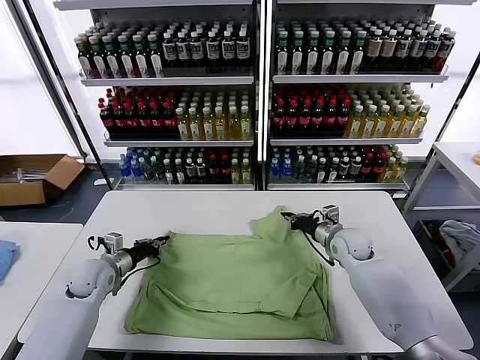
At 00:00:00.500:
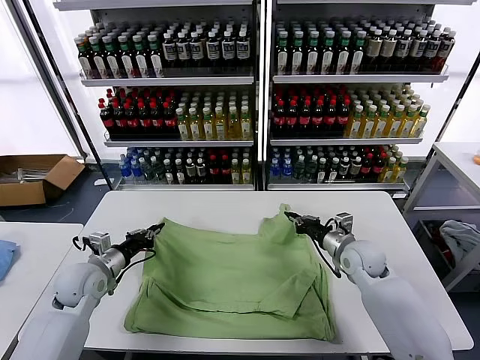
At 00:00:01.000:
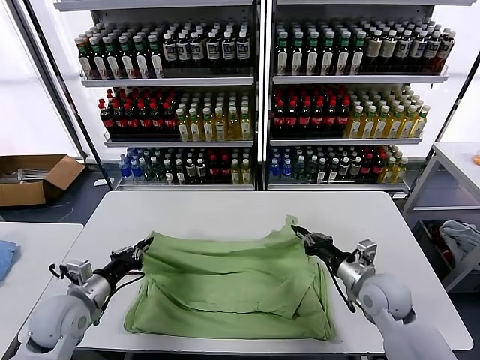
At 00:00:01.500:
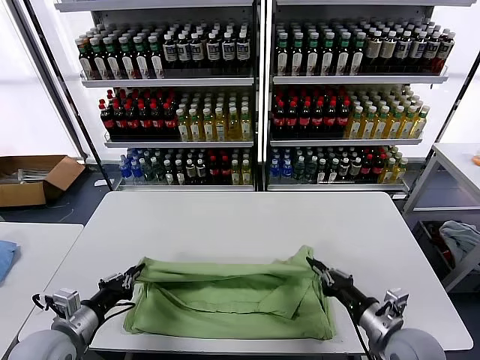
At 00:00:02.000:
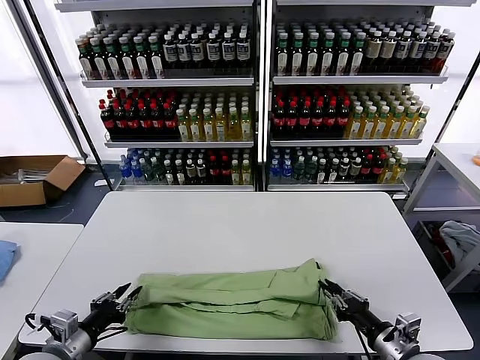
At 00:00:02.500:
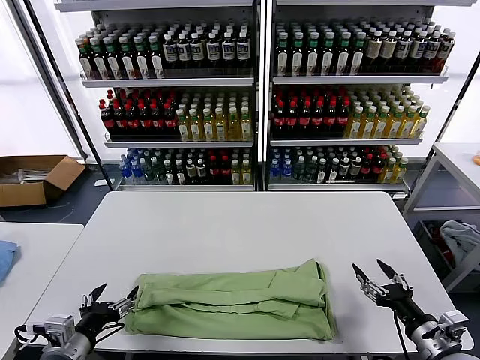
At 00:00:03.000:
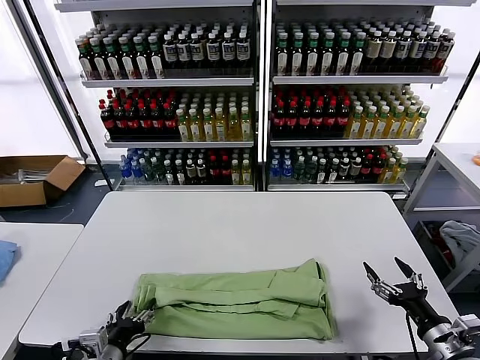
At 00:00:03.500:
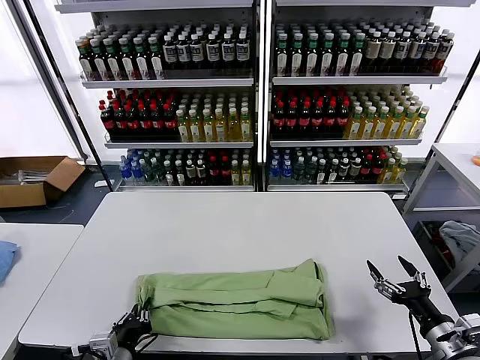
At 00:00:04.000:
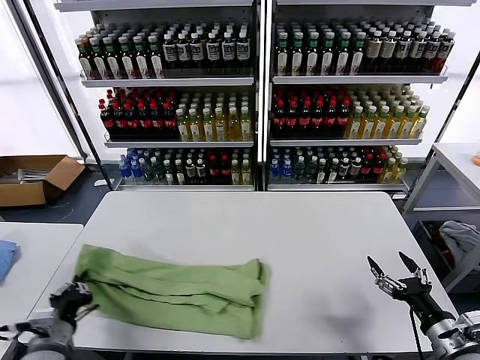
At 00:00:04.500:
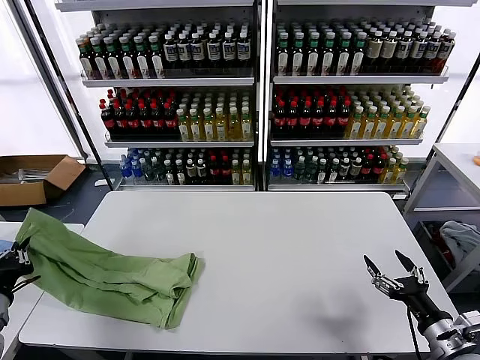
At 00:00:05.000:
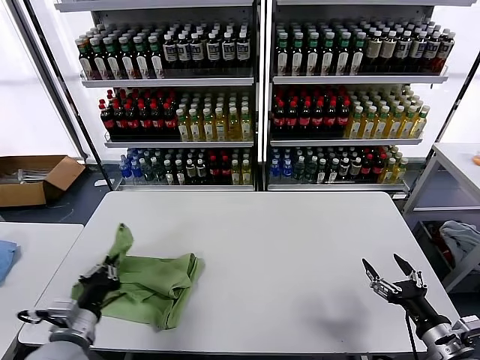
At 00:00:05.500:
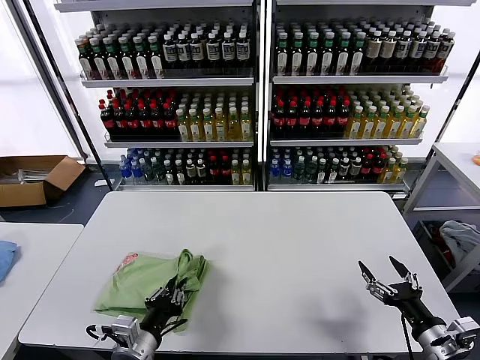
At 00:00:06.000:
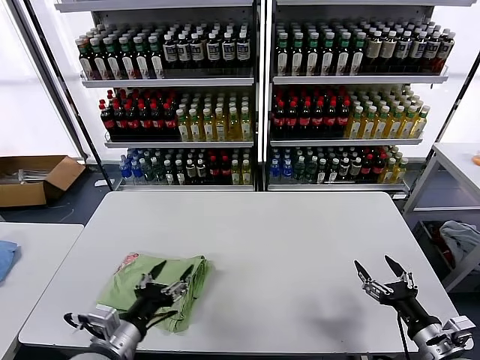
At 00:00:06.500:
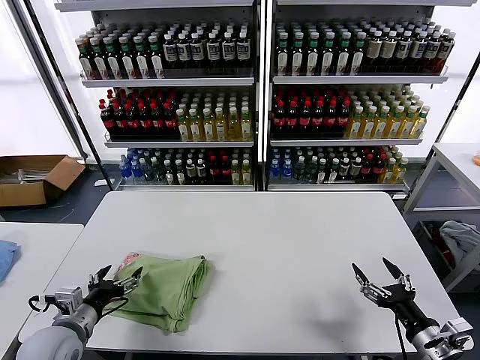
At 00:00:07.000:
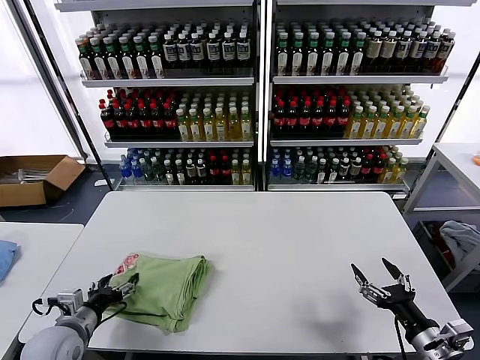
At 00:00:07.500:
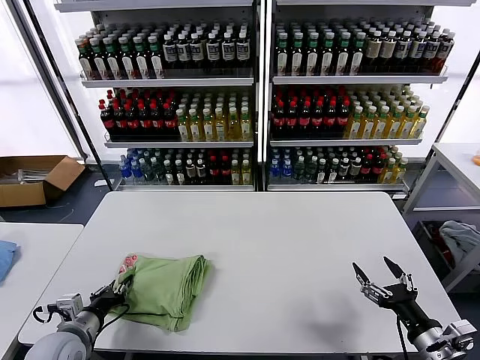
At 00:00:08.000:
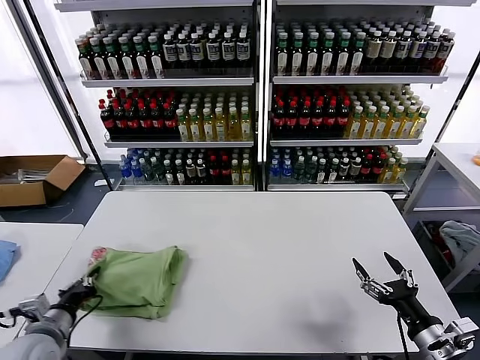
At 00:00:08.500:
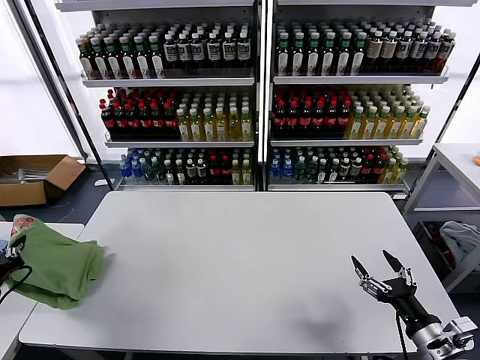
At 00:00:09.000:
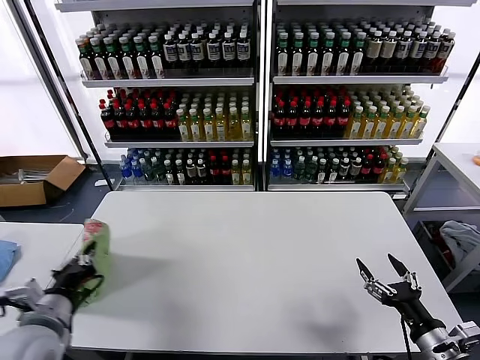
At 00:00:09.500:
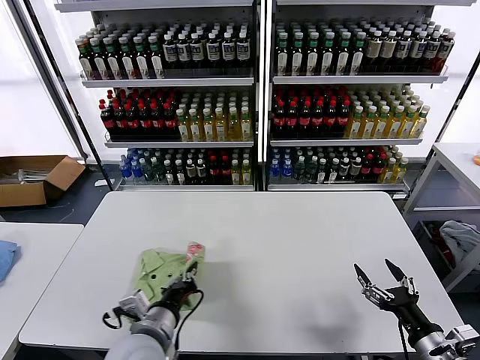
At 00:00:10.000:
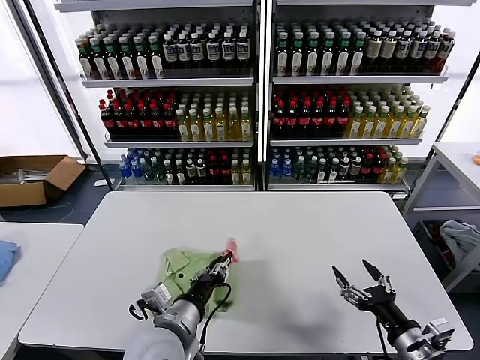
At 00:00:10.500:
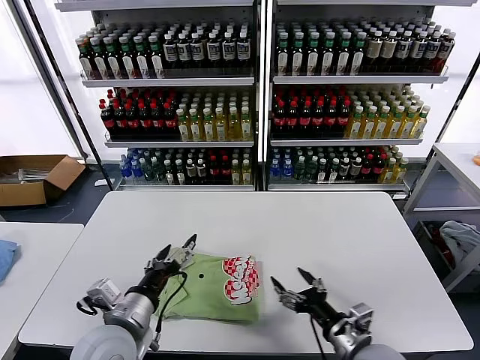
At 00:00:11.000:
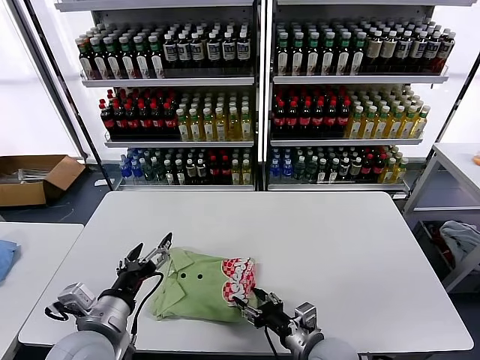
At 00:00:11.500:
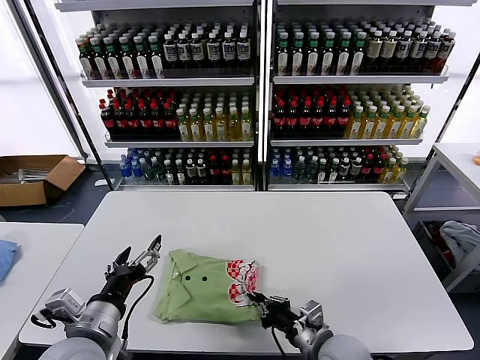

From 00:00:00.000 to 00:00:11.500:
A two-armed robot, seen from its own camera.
Task of the whole recording: fold and organize the clothes.
Step, from 00:00:00.000 to 00:00:02.000: use both grippers to drag the upper edge of the fabric backward and fold it over the lower edge.
Step, from 00:00:02.500 to 00:00:03.500: use the left gripper to clamp the left edge of the fabric.
Step, from 00:00:04.000 to 00:00:05.500: use the left gripper to drag the left edge of the fabric to the left and folds it over the right edge.
Step, from 00:00:06.000 to 00:00:10.000: Flip the folded clothes over with left gripper.
From 00:00:00.000 to 00:00:02.000: The grippers both shift backward by about 25 cm.
From 00:00:02.000 to 00:00:04.000: The right gripper moves to the right, roughly 5 cm, and opens. Meanwhile the left gripper travels to the right and back again, roughly 10 cm each way, and opens and closes again.
From 00:00:04.000 to 00:00:06.000: The left gripper heads to the right and upward, covering roughly 15 cm, and opens its fingers.
From 00:00:06.000 to 00:00:07.500: The left gripper heads to the left, downward and forward, covering approximately 15 cm, and closes up.
From 00:00:07.500 to 00:00:09.500: The left gripper is displaced to the right by about 15 cm.
From 00:00:09.500 to 00:00:11.500: The left gripper goes roughly 5 cm to the left, and opens; the right gripper shifts some 20 cm to the left, and closes.

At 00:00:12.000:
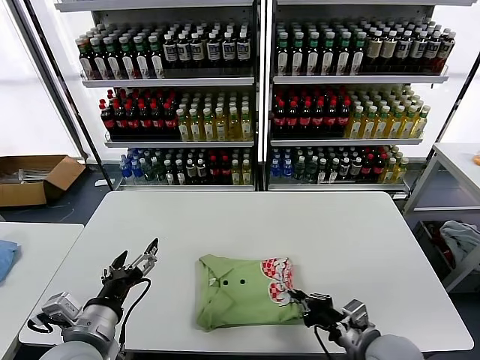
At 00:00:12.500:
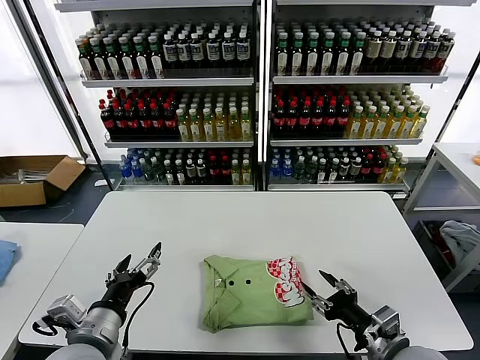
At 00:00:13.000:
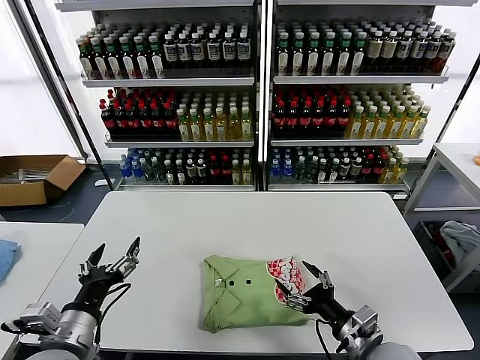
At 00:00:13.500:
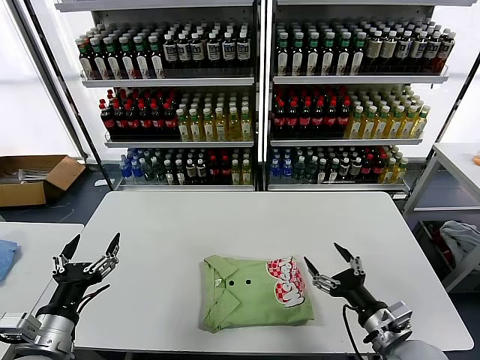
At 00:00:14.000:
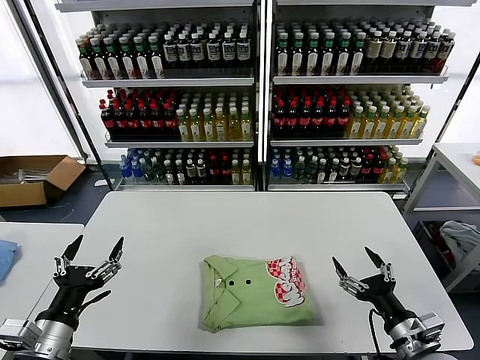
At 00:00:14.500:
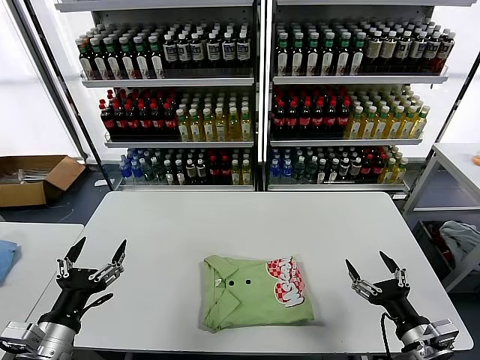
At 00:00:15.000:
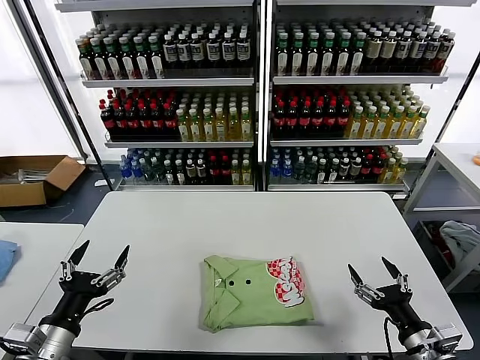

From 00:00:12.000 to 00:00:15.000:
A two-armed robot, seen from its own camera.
Task of the whole recording: fold and organize the clothes.
From 00:00:12.000 to 00:00:13.500: The left gripper travels to the left by roughly 5 cm. The right gripper opens its fingers.
From 00:00:13.500 to 00:00:15.000: The right gripper shifts roughly 5 cm to the right.

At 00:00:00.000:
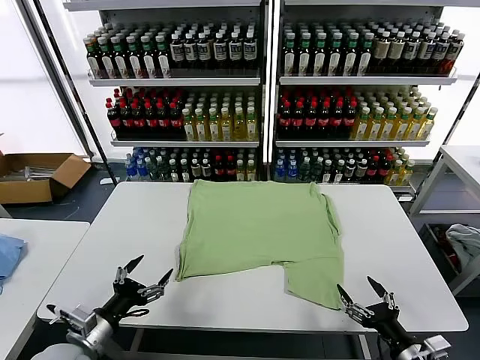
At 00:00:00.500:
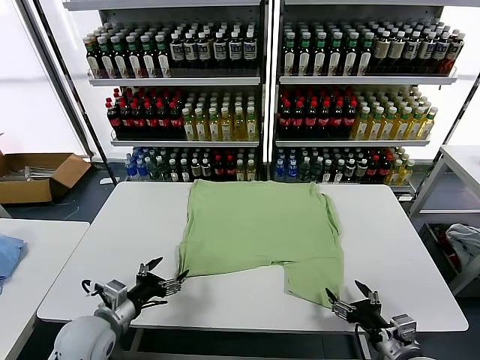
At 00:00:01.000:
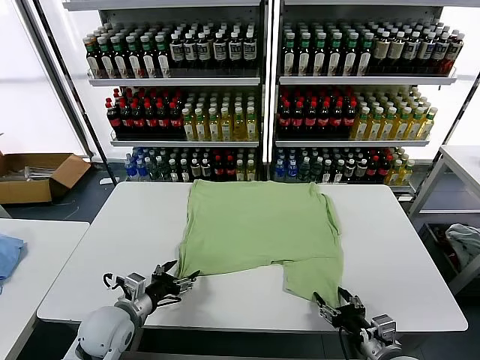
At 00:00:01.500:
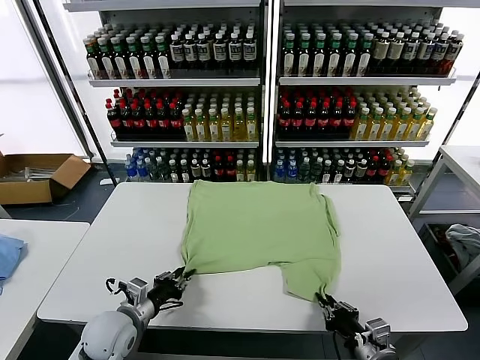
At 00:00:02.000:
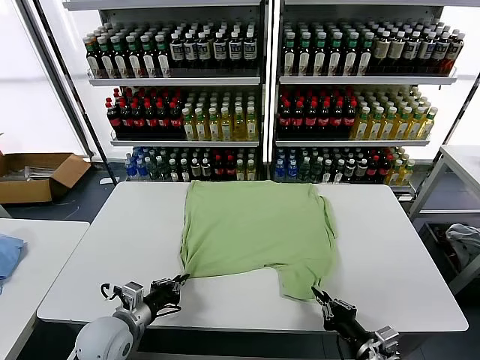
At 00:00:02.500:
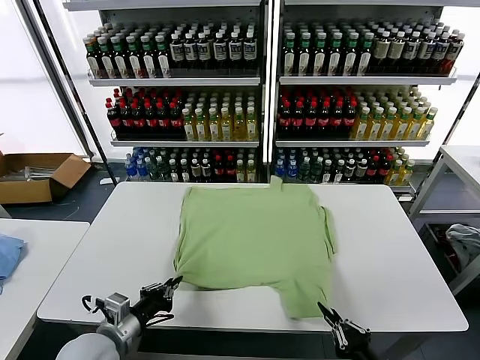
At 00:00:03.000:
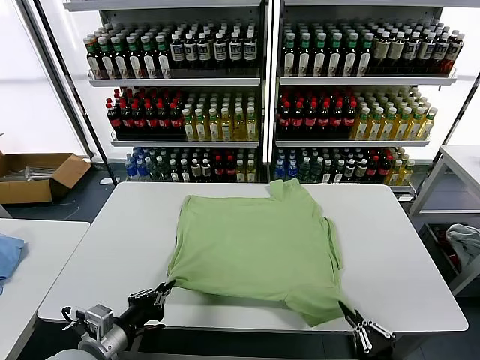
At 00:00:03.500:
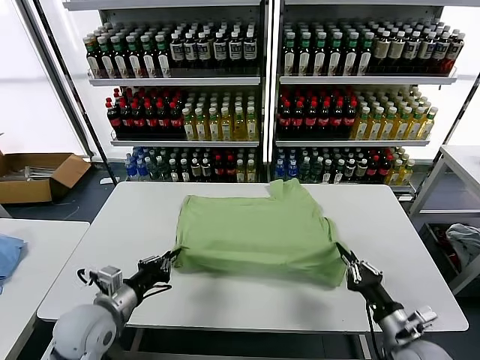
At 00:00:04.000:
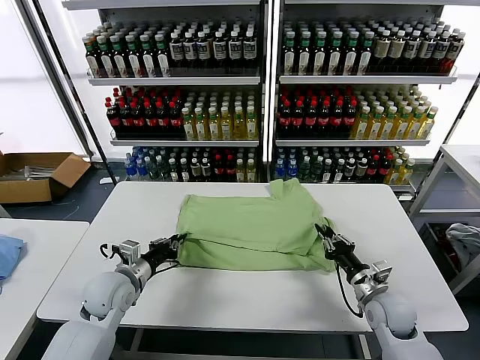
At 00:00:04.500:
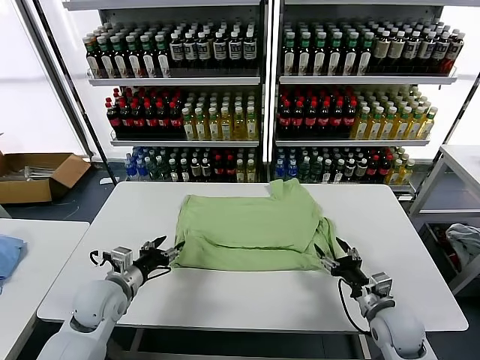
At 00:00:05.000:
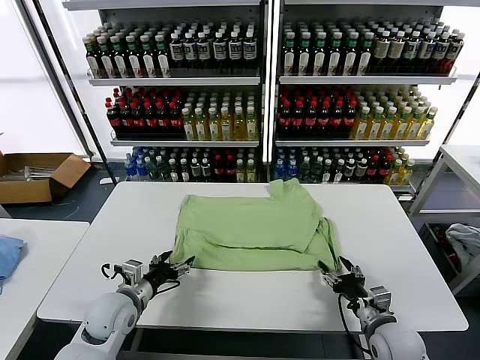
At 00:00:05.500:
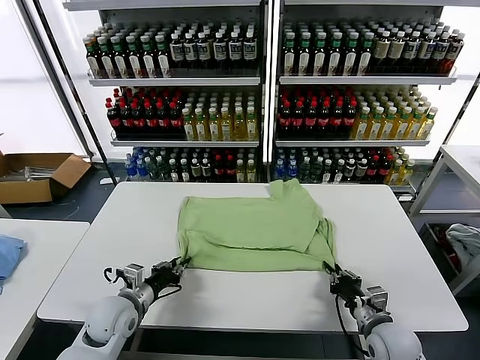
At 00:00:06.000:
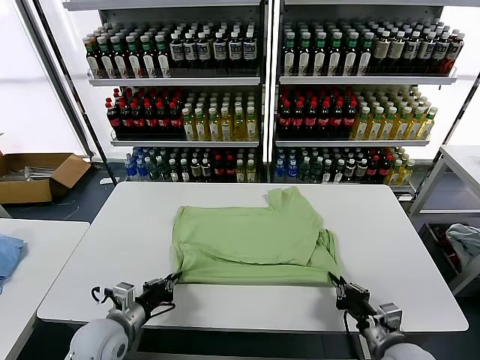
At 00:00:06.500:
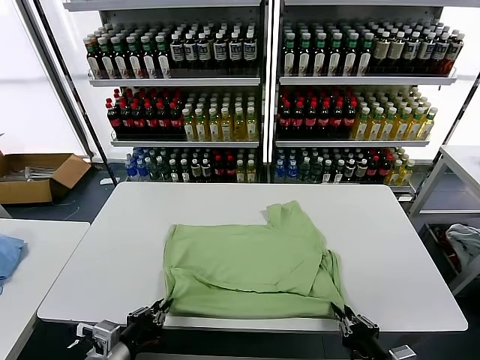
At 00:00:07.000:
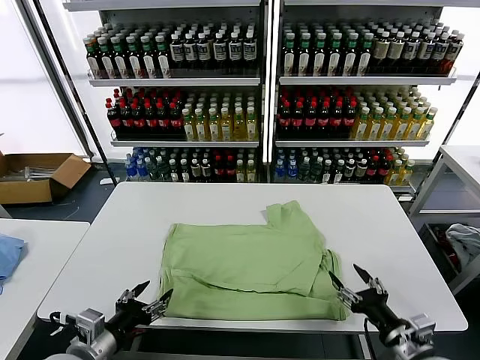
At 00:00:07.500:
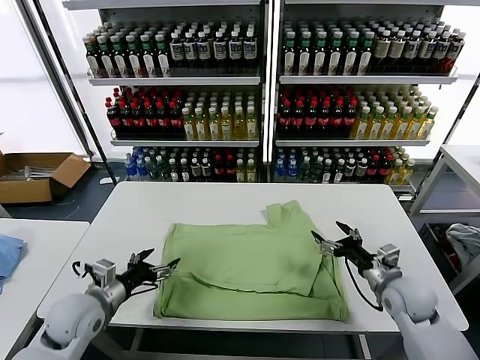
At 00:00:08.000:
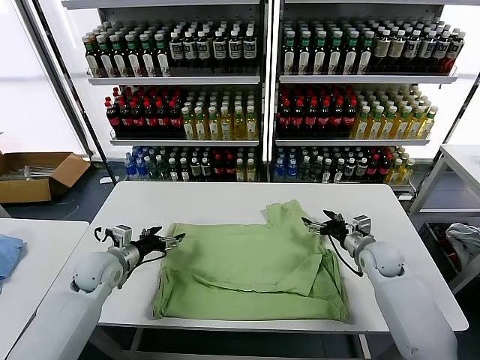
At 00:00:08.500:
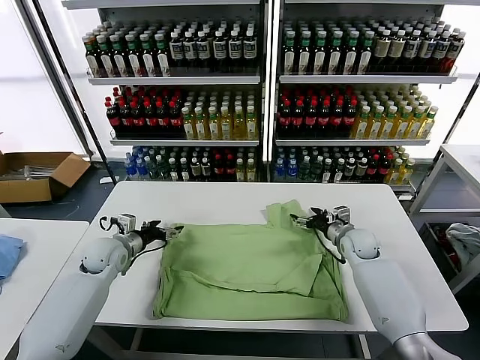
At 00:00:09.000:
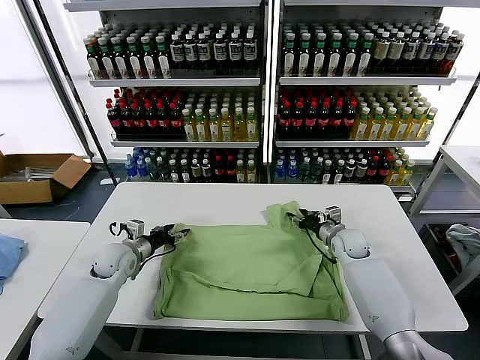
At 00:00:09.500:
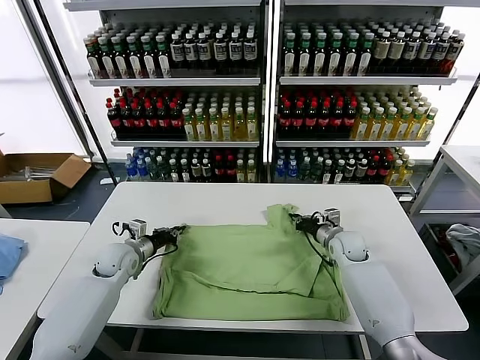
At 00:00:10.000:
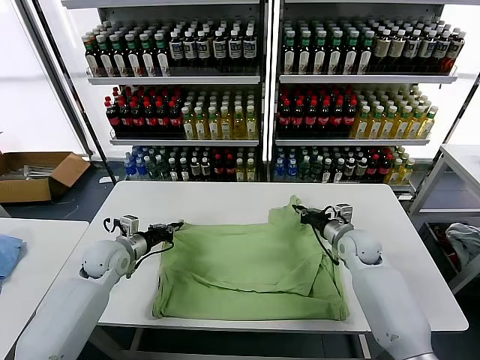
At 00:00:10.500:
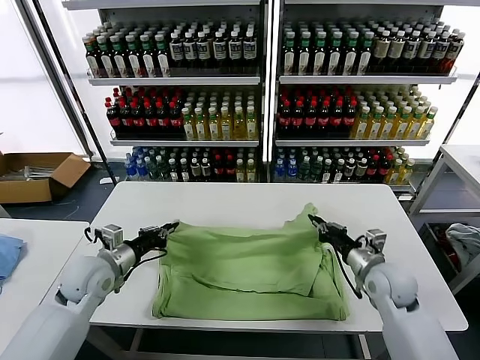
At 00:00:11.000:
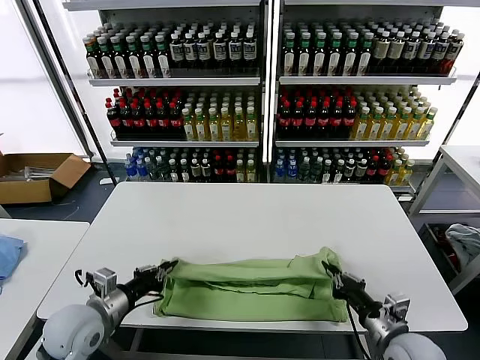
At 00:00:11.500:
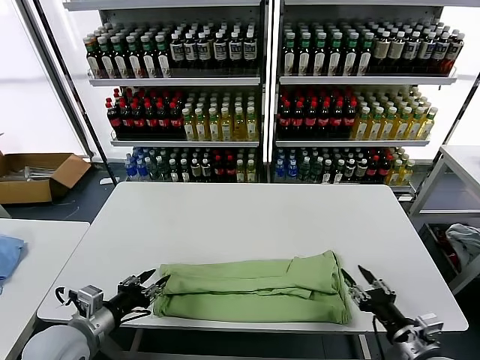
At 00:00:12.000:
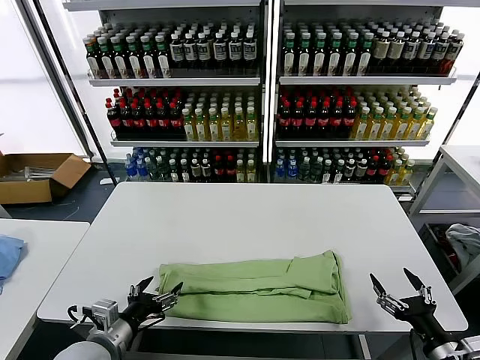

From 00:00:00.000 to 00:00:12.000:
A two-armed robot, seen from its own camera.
Task of the whole recording: fold and organize the clothes.
Step, from 00:00:00.000 to 00:00:01.500: use both grippers simultaneously to clamp the lower edge of the clothing fabric.
Step, from 00:00:02.000 to 00:00:04.000: use both grippers to drag the lower edge of the fabric forward and fold it over the upper edge.
Step, from 00:00:04.500 to 00:00:06.500: Drag the clothes downward with both gripper.
Step, from 00:00:07.000 to 00:00:09.500: use both grippers simultaneously to clamp the upper edge of the clothing fabric.
Step, from 00:00:10.000 to 00:00:11.000: use both grippers to drag the upper edge of the fabric backward and fold it over the lower edge.
From 00:00:02.000 to 00:00:04.000: The left gripper is displaced forward by approximately 10 cm; the right gripper travels forward by roughly 15 cm, and opens.
From 00:00:04.000 to 00:00:06.000: The grippers both shift backward by approximately 10 cm. The left gripper opens, then closes again, while the right gripper closes its fingers.
From 00:00:06.000 to 00:00:08.000: The left gripper goes approximately 15 cm forward, and opens up. Meanwhile the right gripper heads forward, covering about 30 cm, and opens.
From 00:00:08.000 to 00:00:10.000: The left gripper closes its fingers, while the right gripper ends up about 5 cm from where it was, and closes.
From 00:00:10.000 to 00:00:12.000: Both grippers move backward, roughly 30 cm. The right gripper opens; the left gripper opens up.
